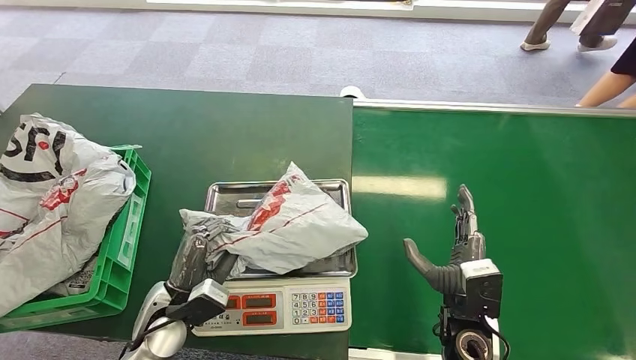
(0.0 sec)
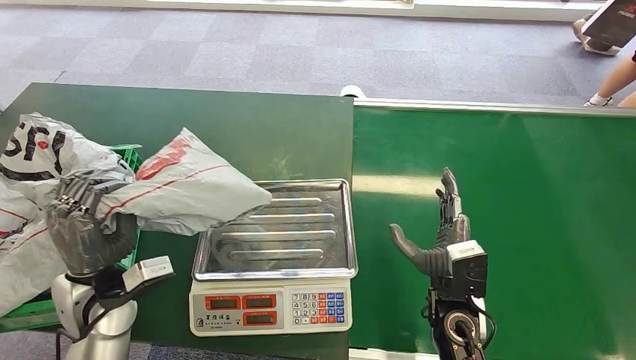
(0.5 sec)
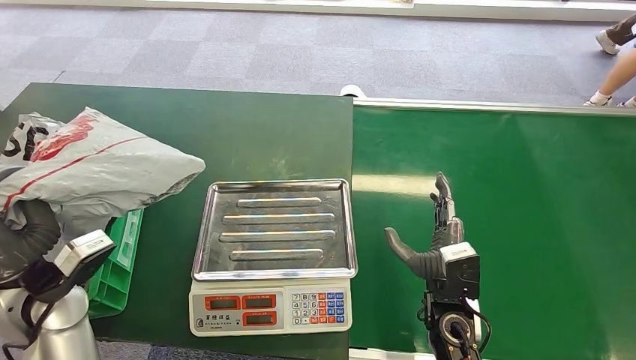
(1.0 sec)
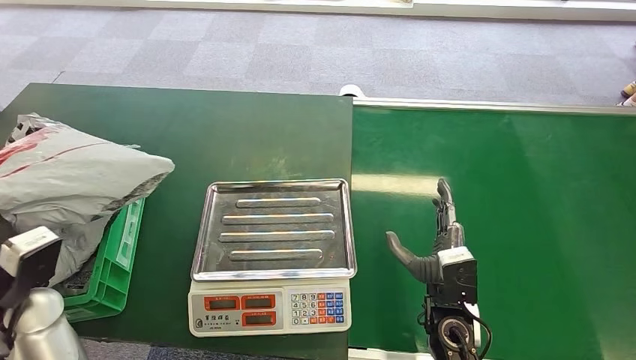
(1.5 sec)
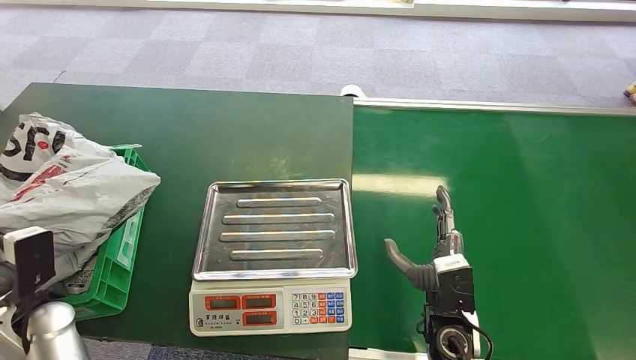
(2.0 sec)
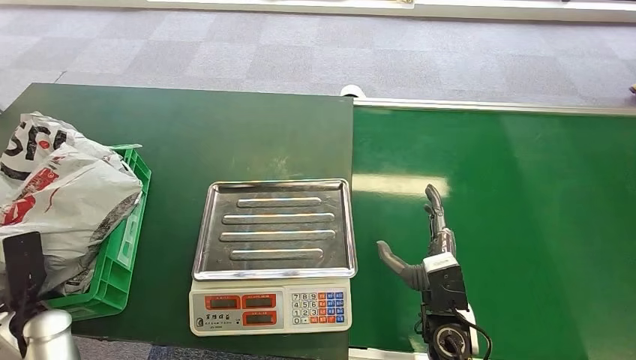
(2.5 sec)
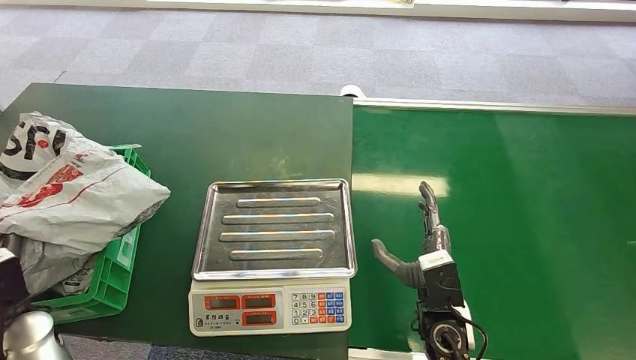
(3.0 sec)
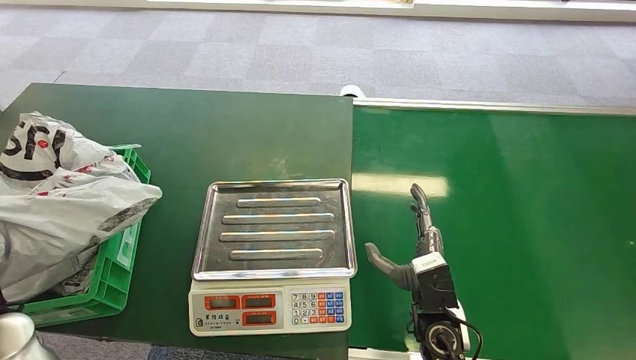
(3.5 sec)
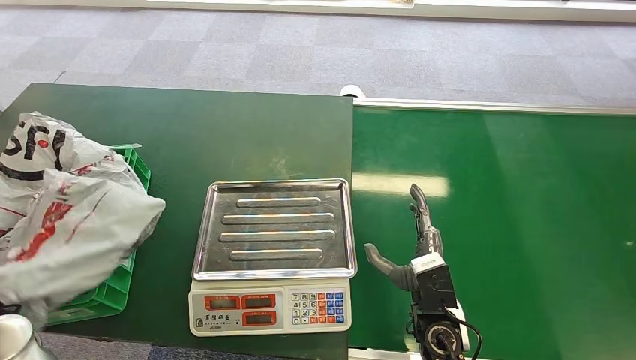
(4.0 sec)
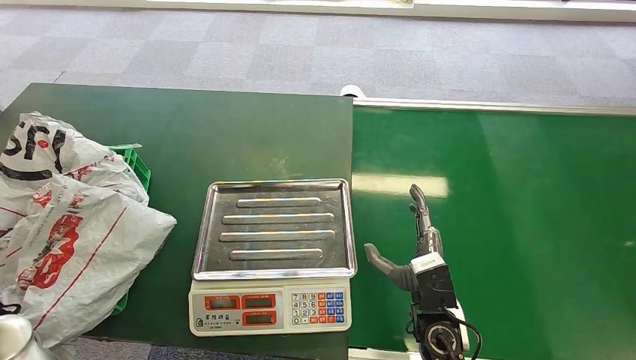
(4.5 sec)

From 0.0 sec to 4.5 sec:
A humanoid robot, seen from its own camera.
Step, from 0.5 sec to 4.5 sec: Place the package into the parcel locker.
From 2.0 sec to 4.5 sec: The left hand moves upward, approximately 5 cm.

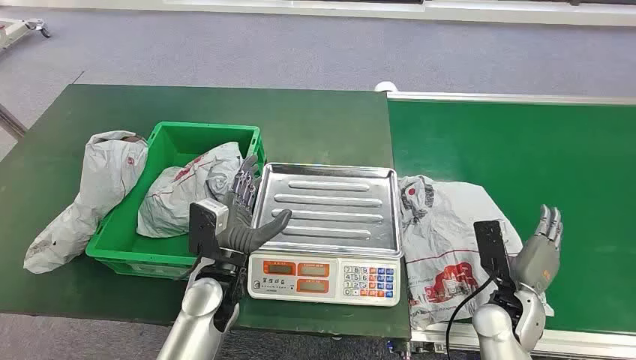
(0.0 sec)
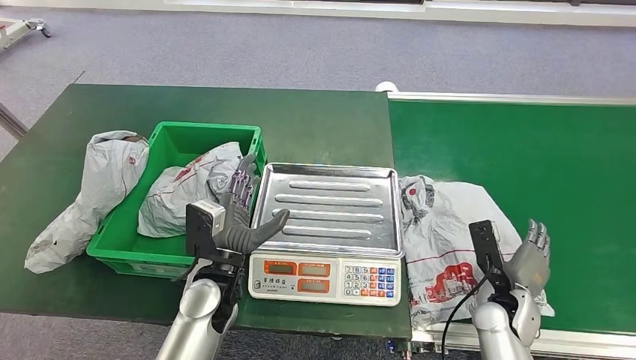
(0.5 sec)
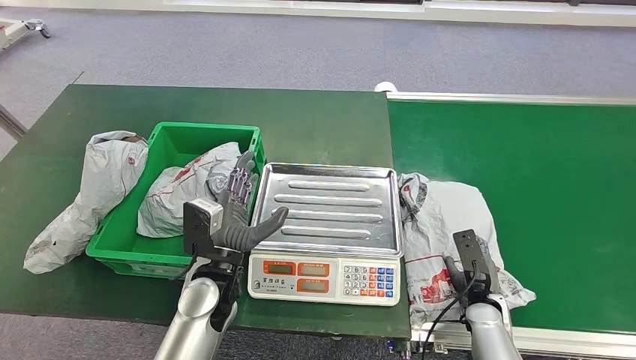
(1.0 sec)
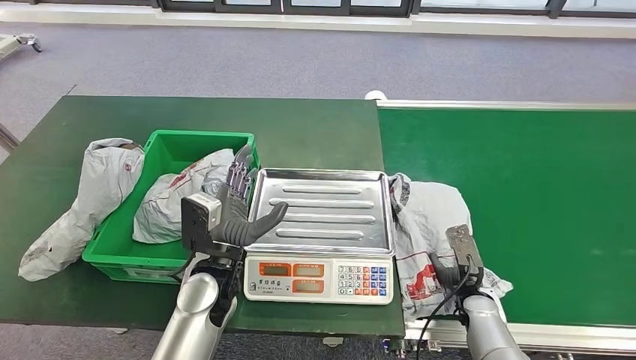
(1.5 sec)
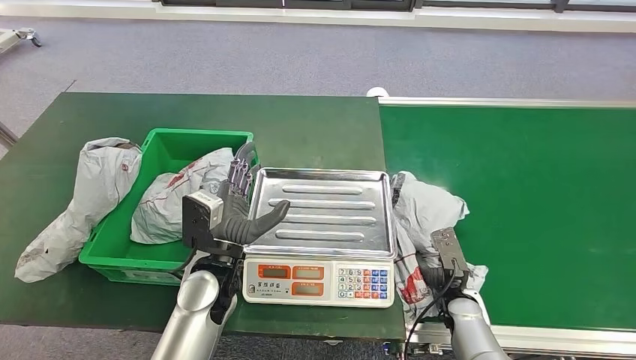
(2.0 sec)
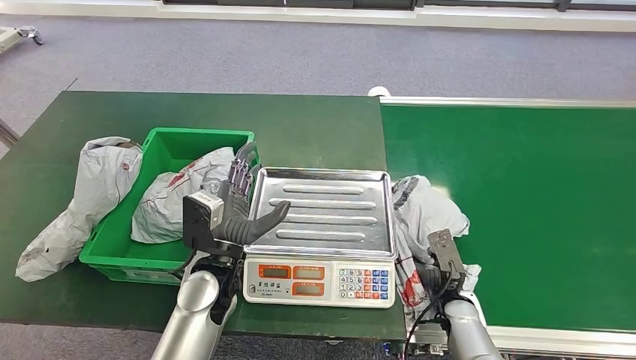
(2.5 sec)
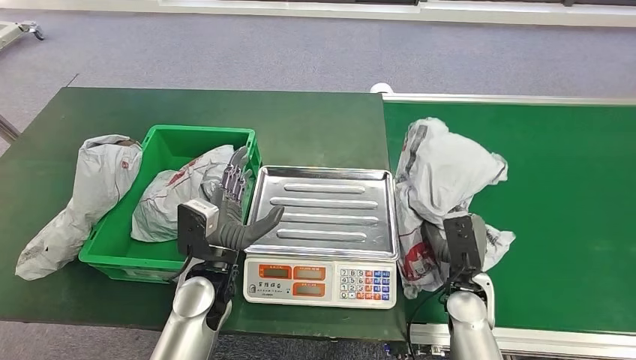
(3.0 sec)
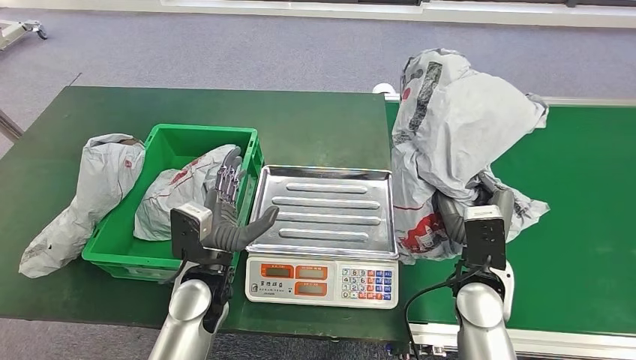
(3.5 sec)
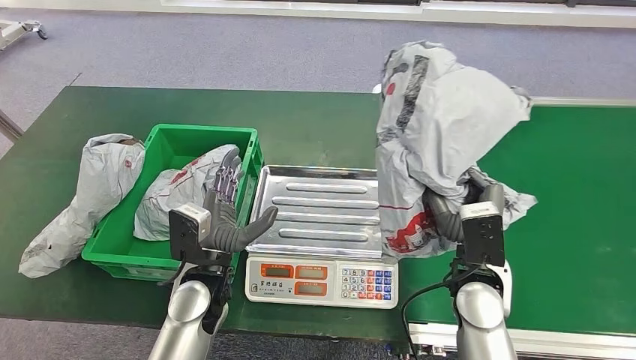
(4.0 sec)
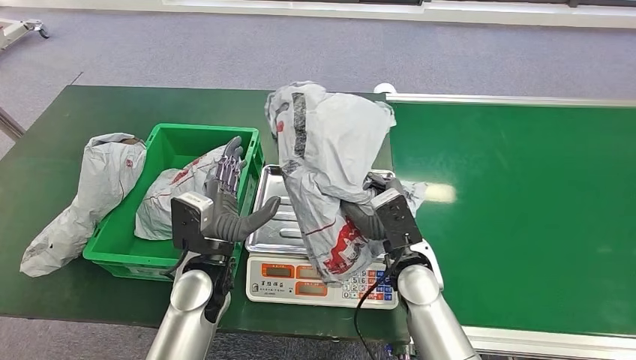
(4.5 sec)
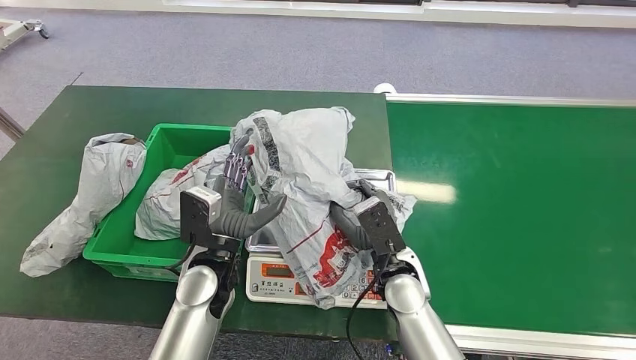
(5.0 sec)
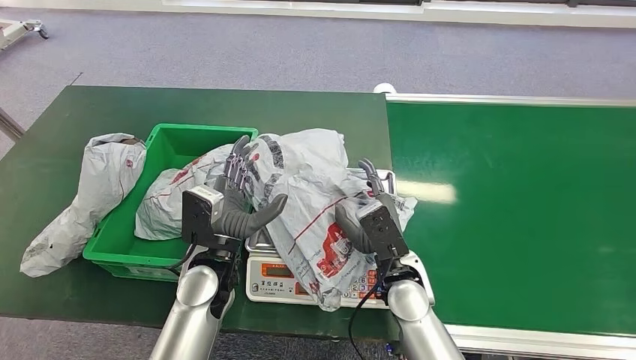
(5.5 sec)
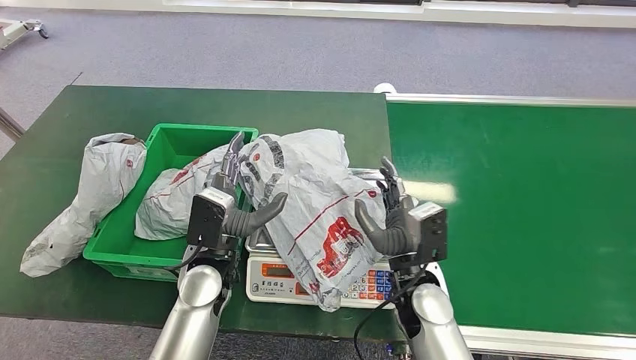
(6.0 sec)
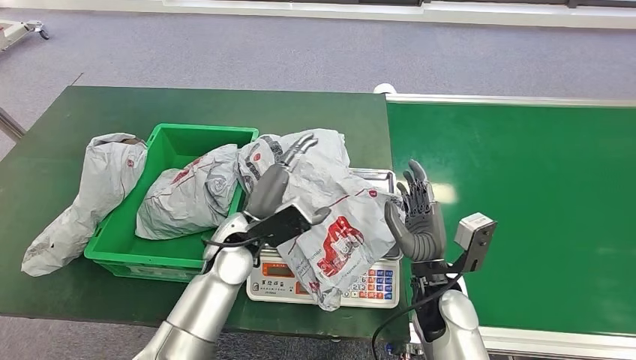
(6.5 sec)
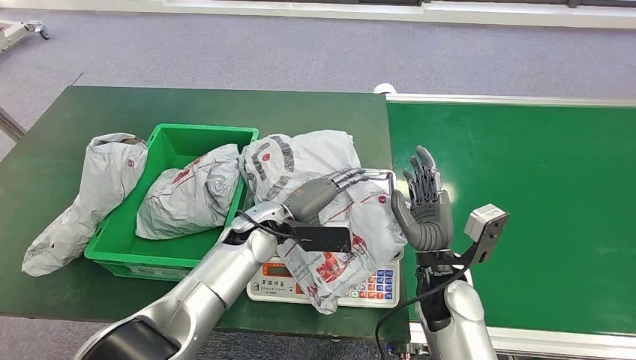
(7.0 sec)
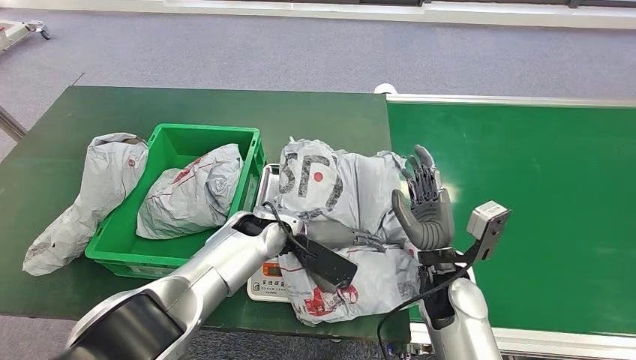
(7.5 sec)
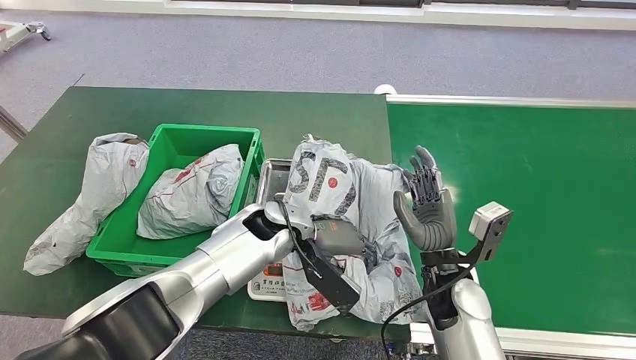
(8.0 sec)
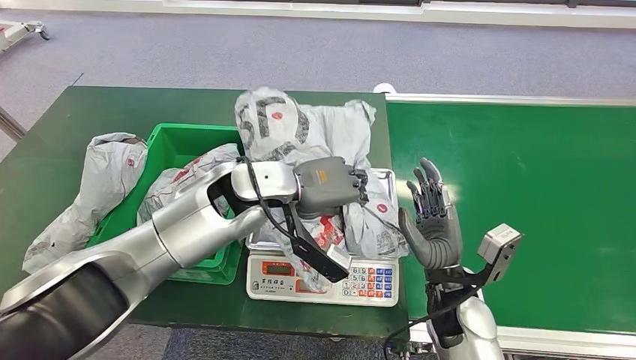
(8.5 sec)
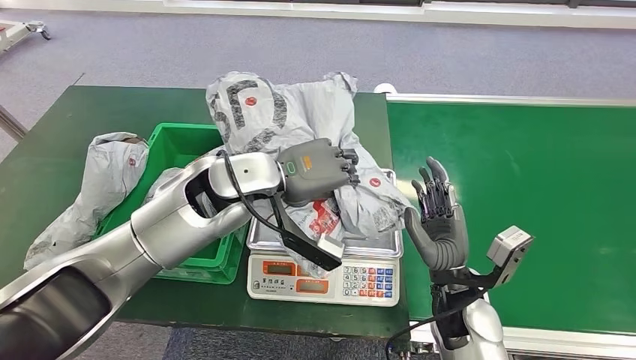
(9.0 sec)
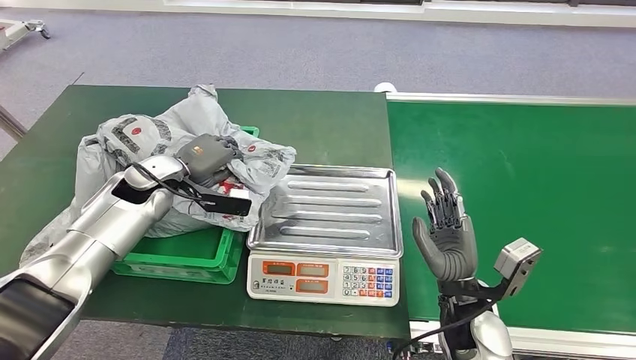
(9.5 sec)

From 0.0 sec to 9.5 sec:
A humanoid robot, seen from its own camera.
Step, from 0.0 sec to 3.5 sec: Pick up the package from the conveyor belt.
Step, from 4.0 sec to 7.0 sec: Place the package onto the inbound machine.

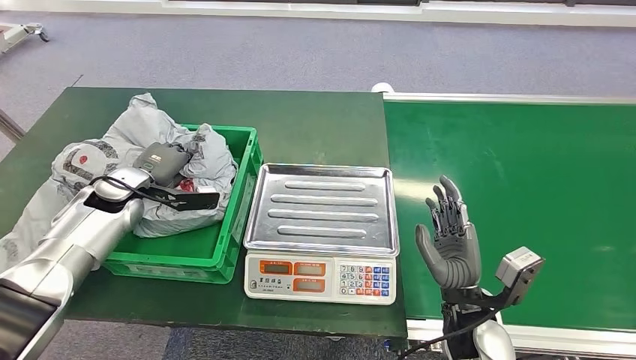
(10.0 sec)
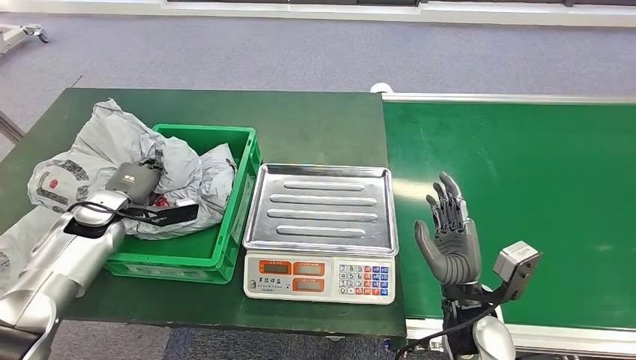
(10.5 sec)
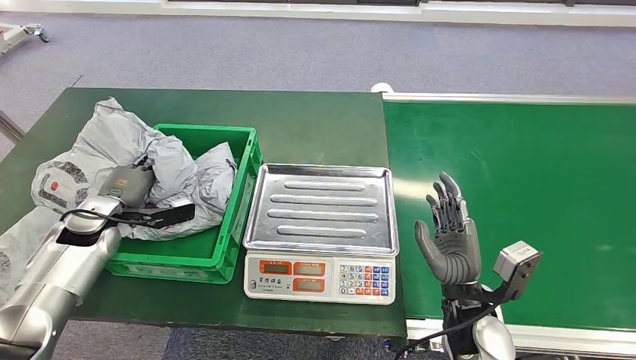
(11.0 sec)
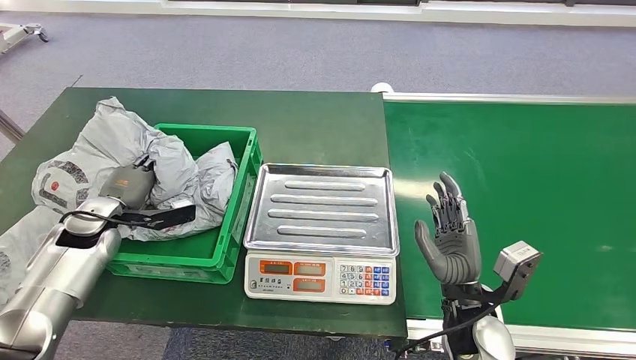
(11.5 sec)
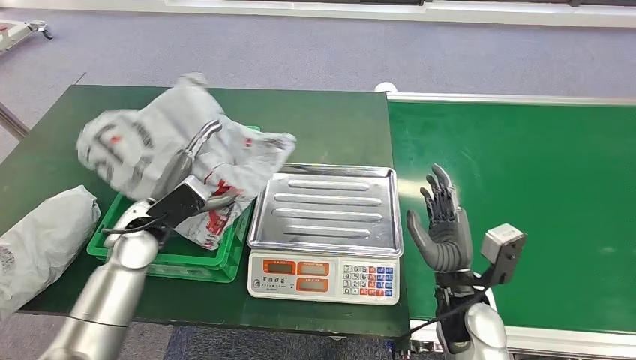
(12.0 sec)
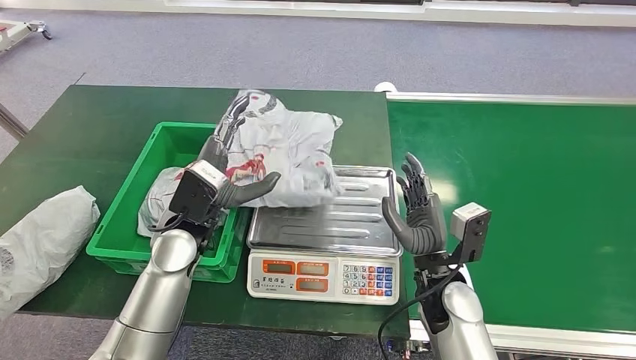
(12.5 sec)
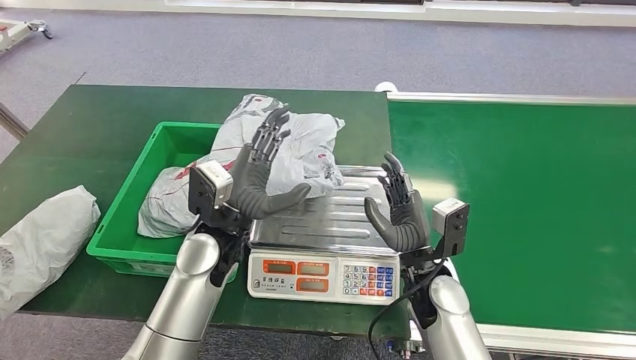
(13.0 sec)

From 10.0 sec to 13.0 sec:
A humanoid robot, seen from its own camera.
Step, from 10.5 sec to 13.0 sec: Place the package into the parcel locker.
From 10.0 sec to 11.5 sec: The left hand is displaced backward by about 5 cm.
